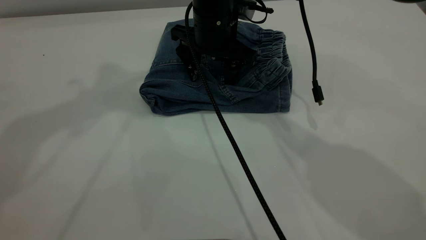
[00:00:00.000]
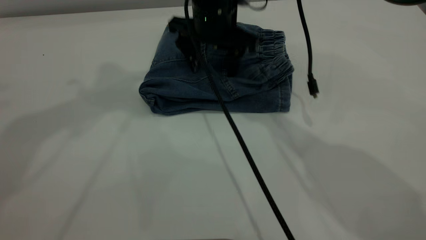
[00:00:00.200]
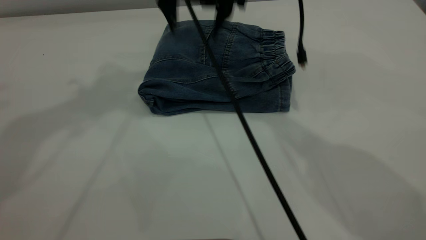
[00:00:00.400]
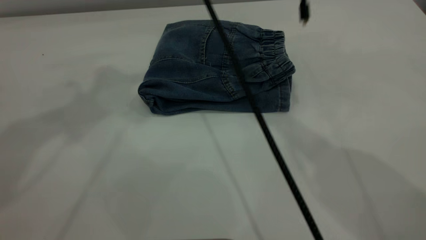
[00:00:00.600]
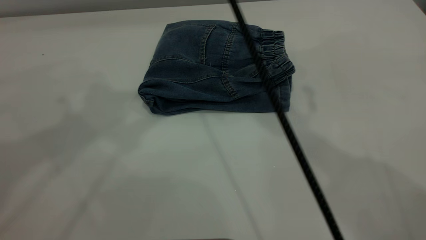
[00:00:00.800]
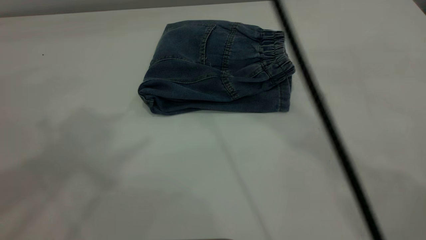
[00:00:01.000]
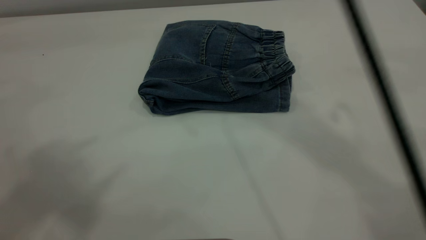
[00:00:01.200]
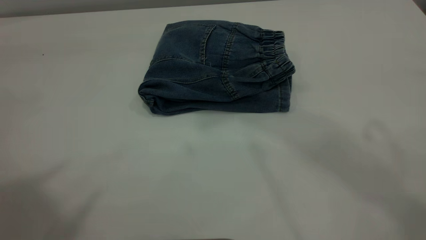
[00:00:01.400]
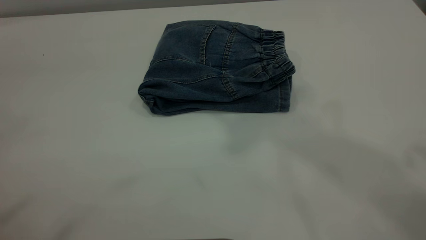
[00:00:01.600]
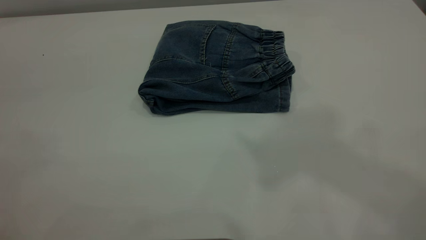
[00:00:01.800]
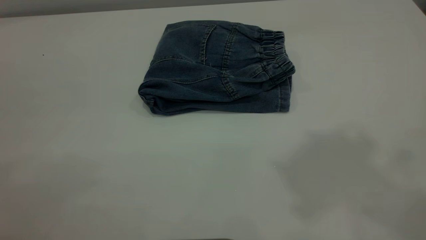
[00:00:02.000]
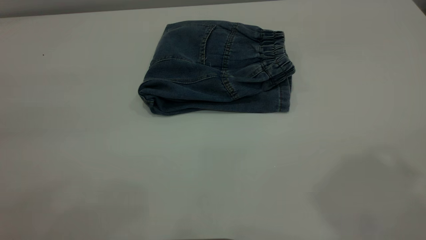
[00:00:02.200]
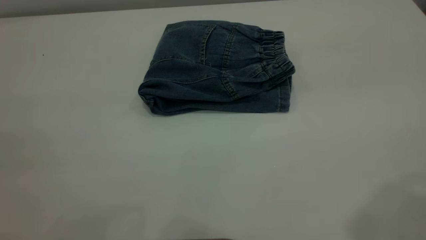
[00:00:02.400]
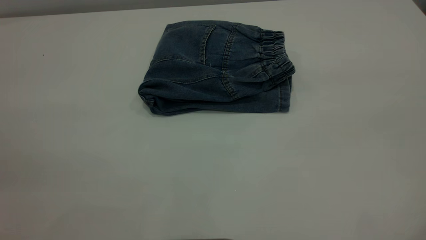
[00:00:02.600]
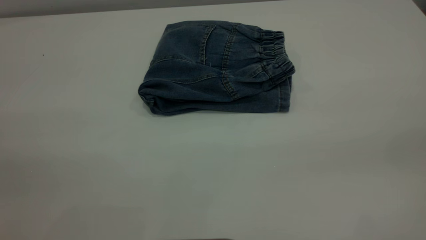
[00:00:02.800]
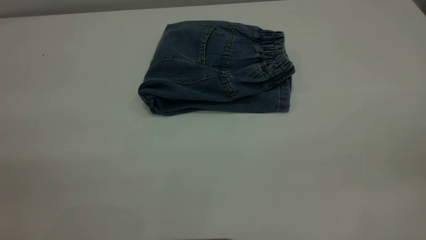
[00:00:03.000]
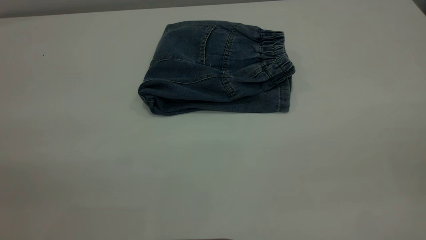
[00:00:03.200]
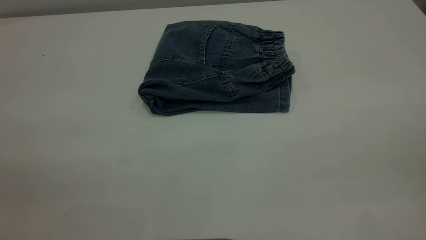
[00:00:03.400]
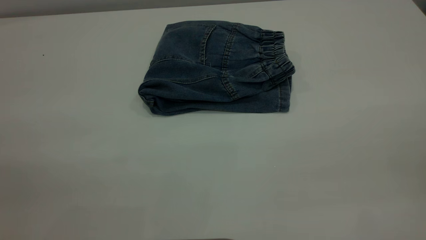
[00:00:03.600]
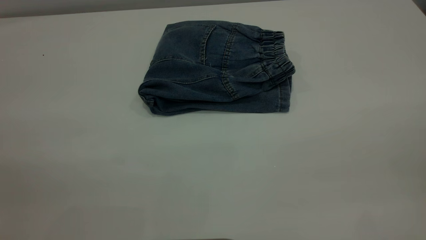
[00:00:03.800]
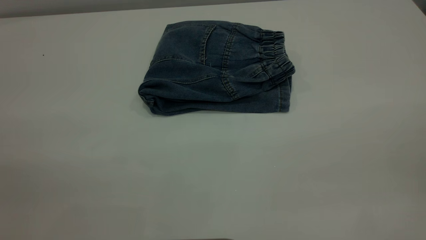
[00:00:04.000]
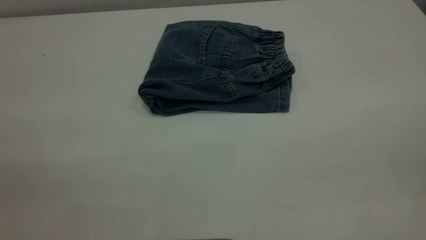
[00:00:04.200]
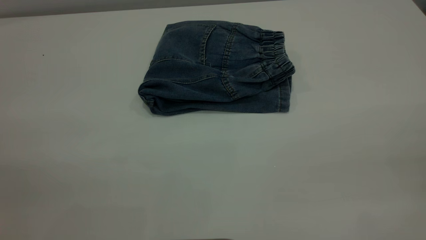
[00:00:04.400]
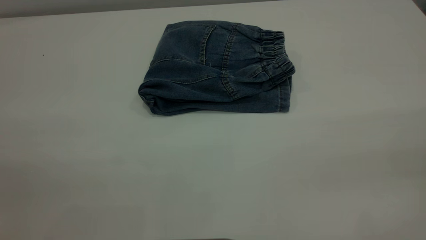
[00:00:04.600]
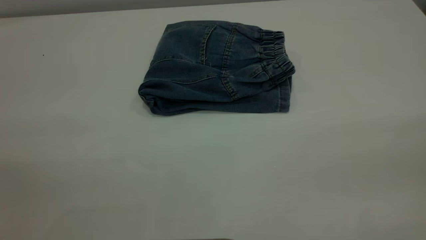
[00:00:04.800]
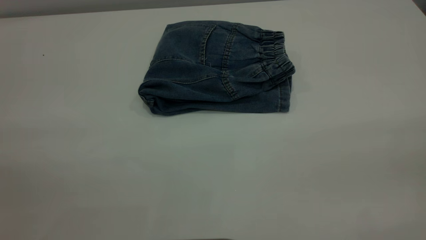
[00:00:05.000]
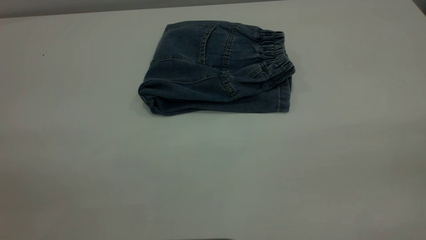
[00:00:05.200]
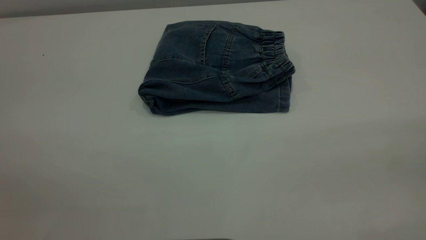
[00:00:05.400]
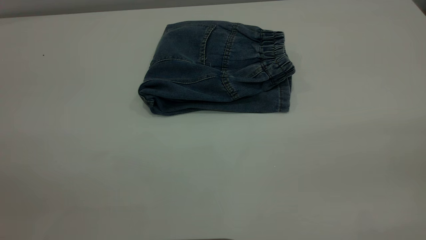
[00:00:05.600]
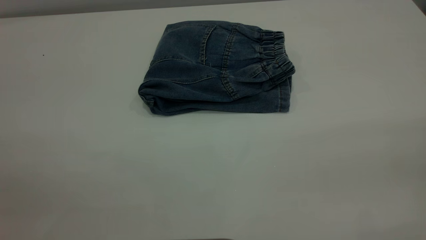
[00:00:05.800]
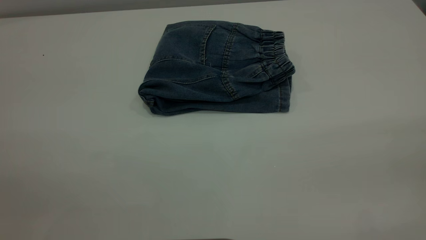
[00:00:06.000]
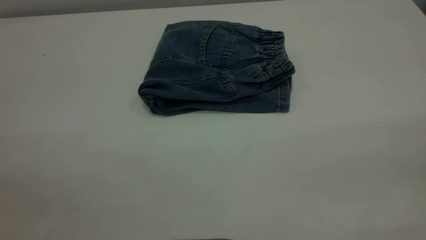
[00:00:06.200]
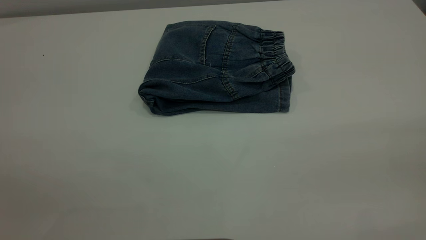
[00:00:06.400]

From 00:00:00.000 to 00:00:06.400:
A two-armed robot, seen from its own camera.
From 00:00:00.000 to 00:00:01.600: The right gripper is displaced upward by about 50 cm. Meanwhile the left gripper moves backward and upward, approximately 30 cm.
